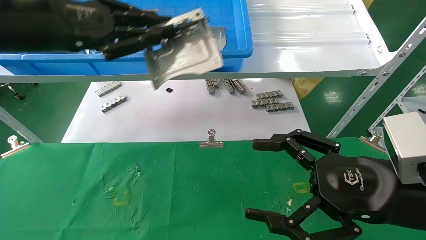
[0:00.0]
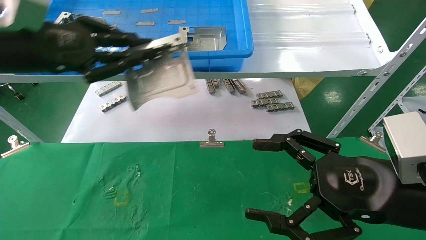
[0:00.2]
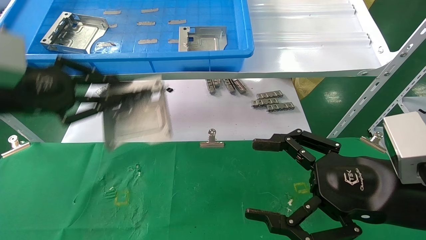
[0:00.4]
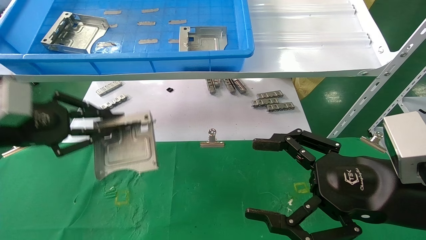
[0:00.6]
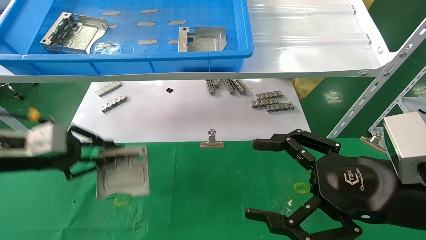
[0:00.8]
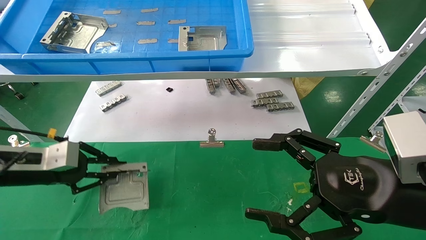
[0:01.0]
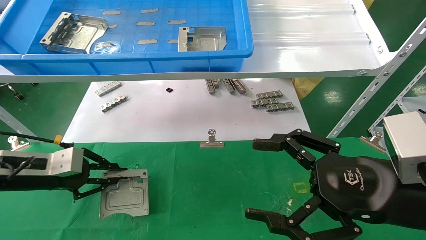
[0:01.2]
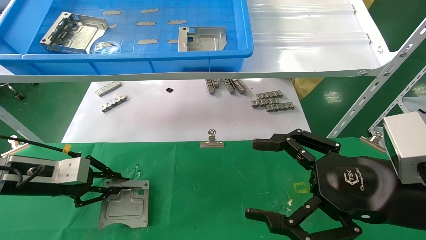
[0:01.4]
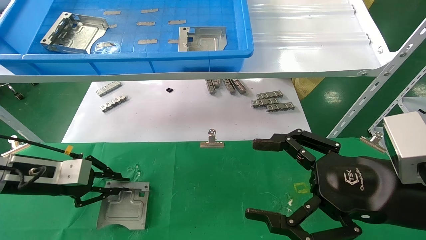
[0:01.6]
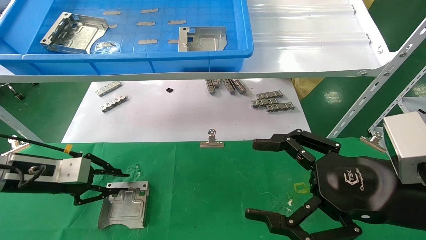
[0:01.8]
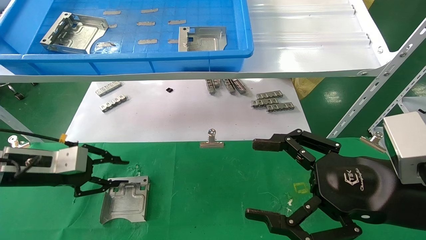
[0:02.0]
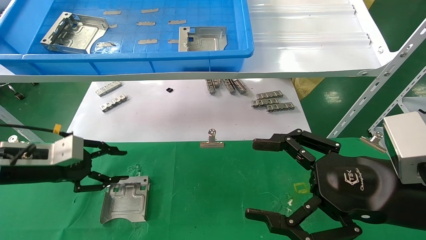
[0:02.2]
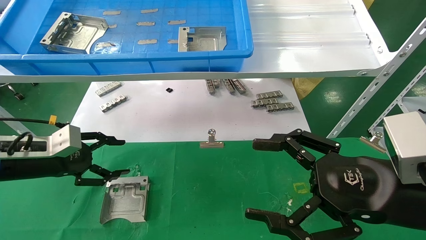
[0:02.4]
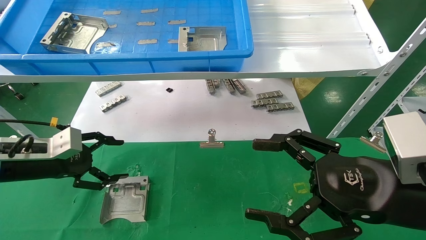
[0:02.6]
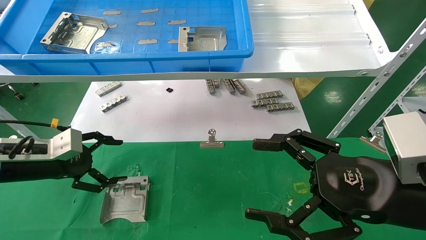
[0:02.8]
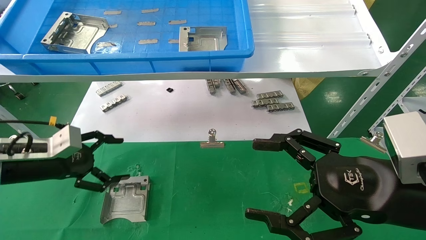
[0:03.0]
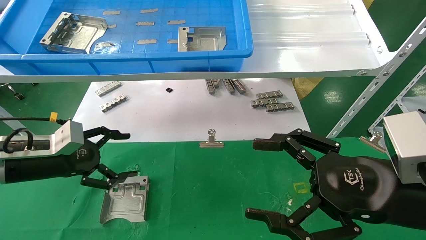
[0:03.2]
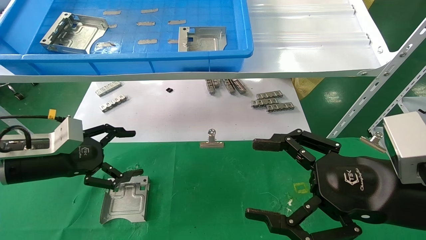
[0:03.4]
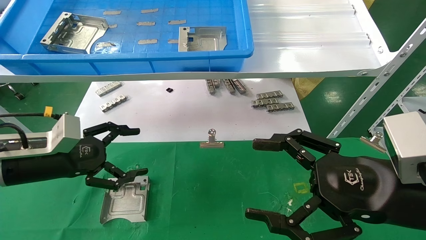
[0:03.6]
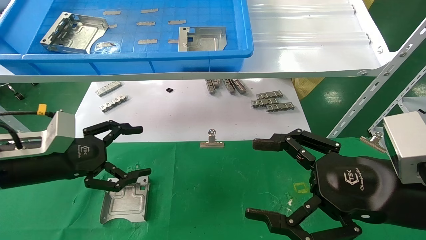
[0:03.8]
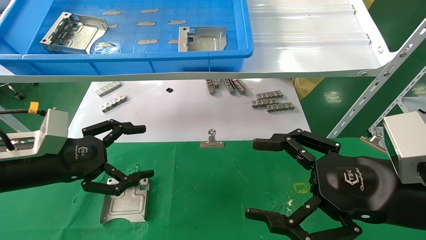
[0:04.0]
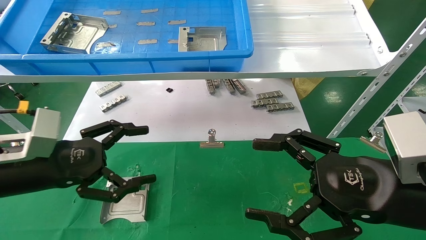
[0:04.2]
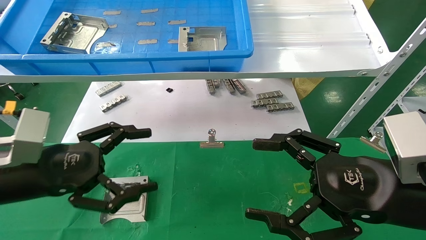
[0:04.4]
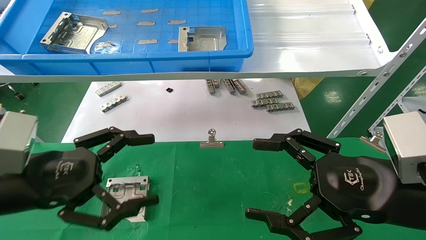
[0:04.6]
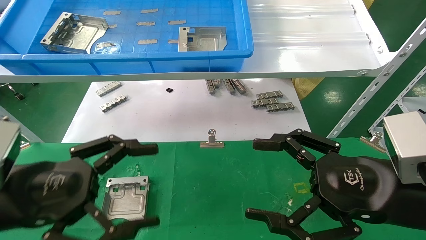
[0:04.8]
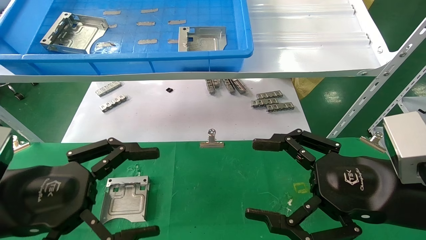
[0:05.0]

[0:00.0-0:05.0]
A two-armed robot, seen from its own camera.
Task of the whole recording: use the mechanical arm to pick up the parts and place them on the table.
Step, 0:00.0 to 0:02.2: Place the hard drive bracket into the box.
0:00.0 to 0:01.6: The left gripper moves downward, approximately 25 cm.
0:01.6 to 0:03.4: The left gripper opens.
0:03.4 to 0:05.0: The left gripper is displaced backward and to the right by about 15 cm.
